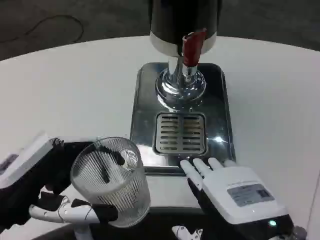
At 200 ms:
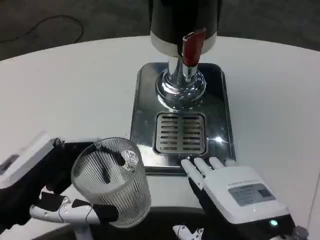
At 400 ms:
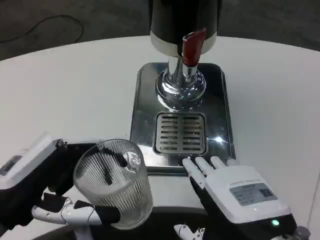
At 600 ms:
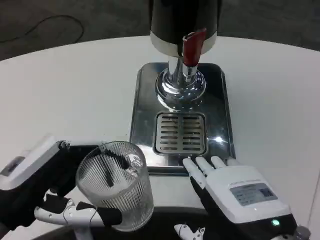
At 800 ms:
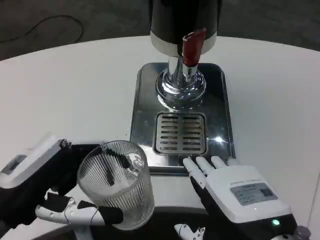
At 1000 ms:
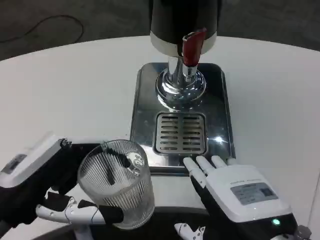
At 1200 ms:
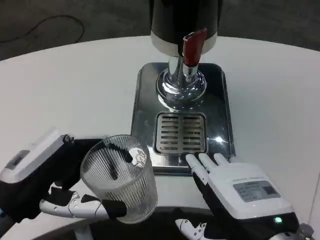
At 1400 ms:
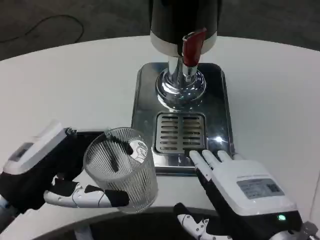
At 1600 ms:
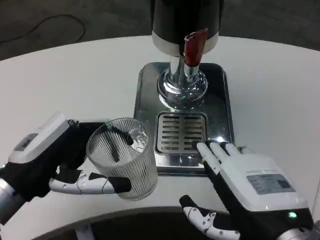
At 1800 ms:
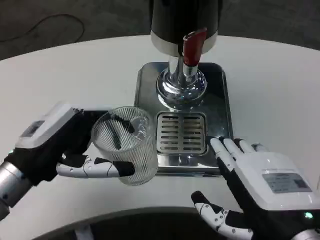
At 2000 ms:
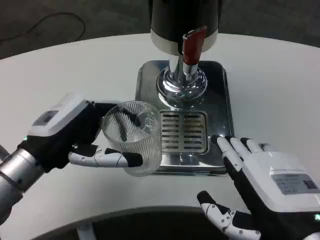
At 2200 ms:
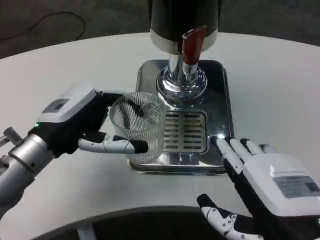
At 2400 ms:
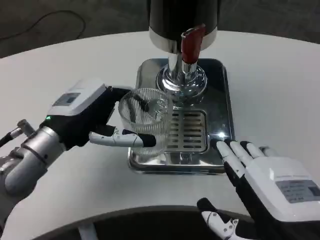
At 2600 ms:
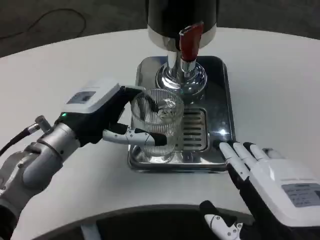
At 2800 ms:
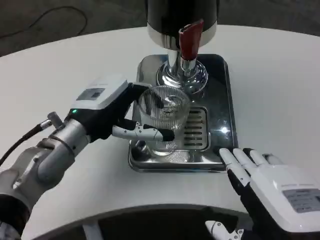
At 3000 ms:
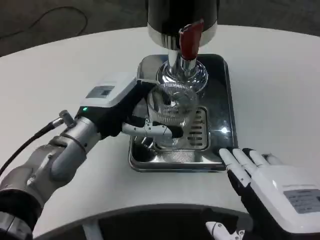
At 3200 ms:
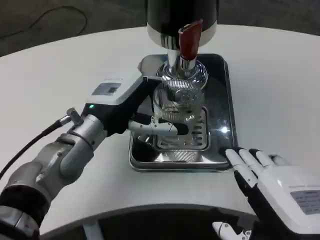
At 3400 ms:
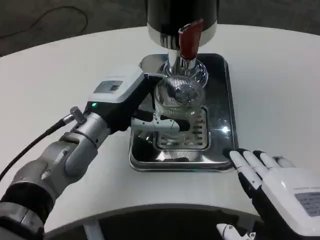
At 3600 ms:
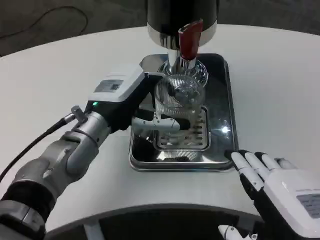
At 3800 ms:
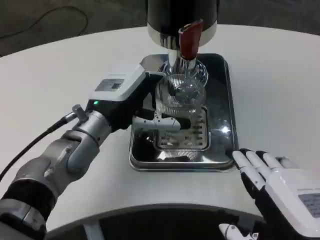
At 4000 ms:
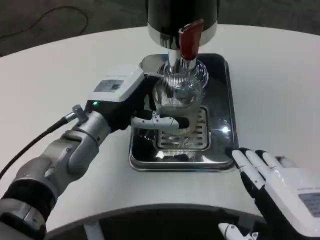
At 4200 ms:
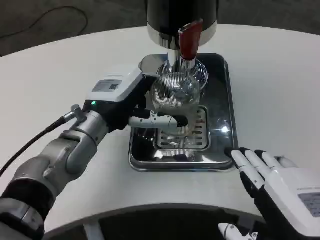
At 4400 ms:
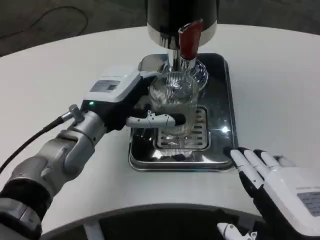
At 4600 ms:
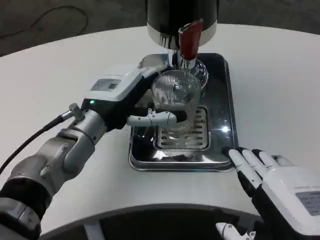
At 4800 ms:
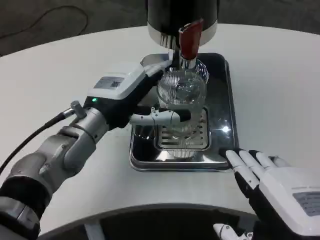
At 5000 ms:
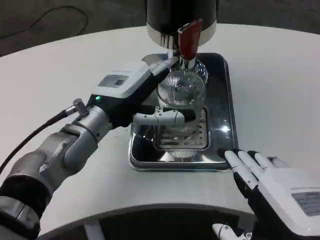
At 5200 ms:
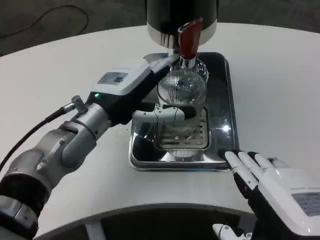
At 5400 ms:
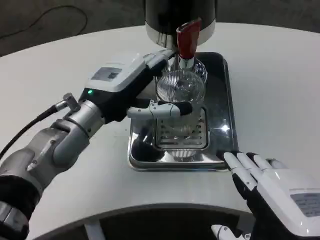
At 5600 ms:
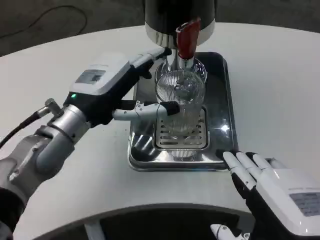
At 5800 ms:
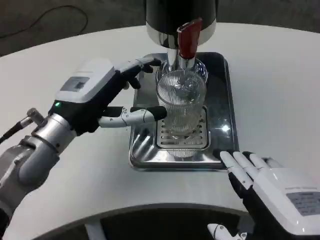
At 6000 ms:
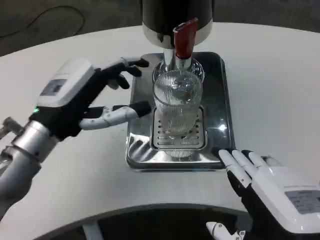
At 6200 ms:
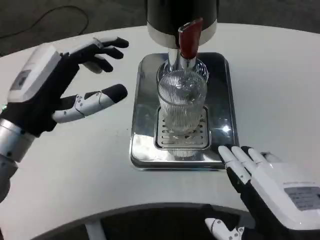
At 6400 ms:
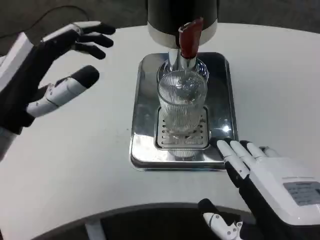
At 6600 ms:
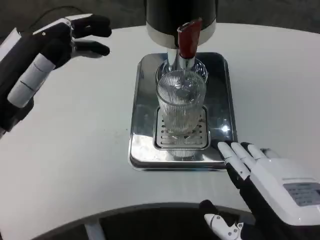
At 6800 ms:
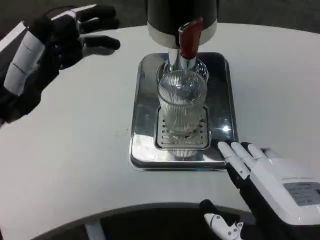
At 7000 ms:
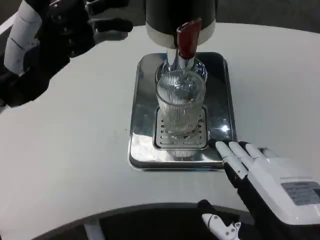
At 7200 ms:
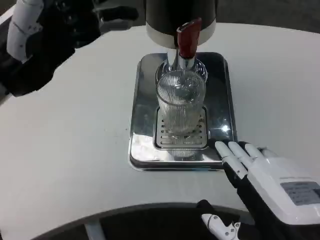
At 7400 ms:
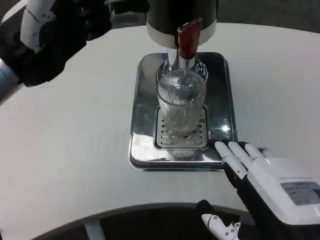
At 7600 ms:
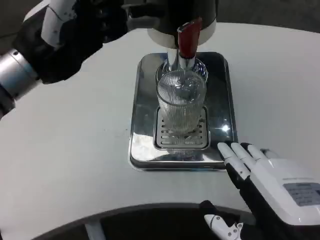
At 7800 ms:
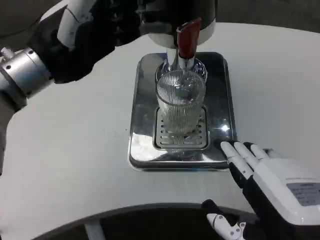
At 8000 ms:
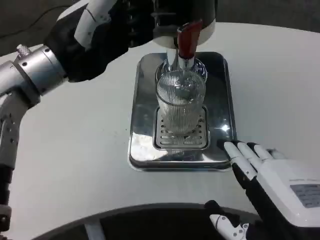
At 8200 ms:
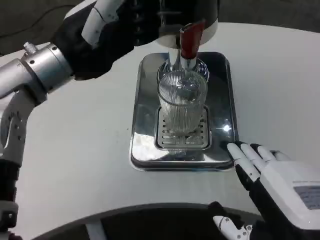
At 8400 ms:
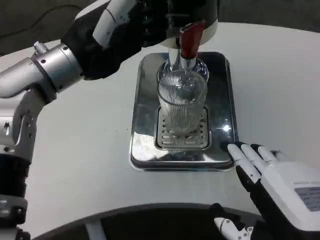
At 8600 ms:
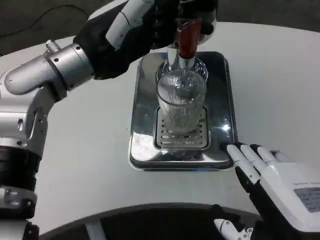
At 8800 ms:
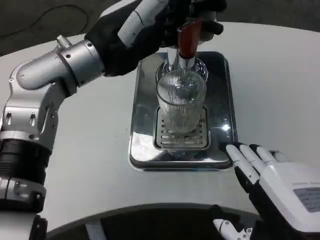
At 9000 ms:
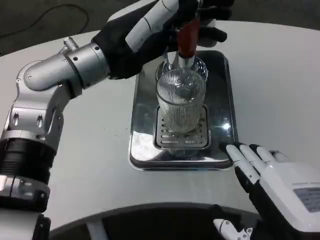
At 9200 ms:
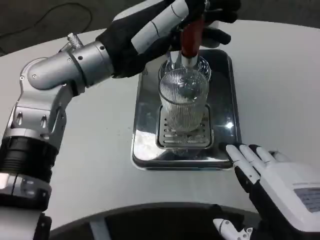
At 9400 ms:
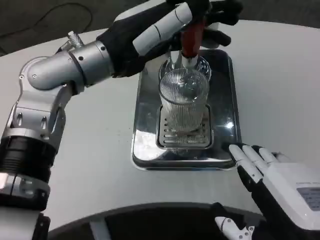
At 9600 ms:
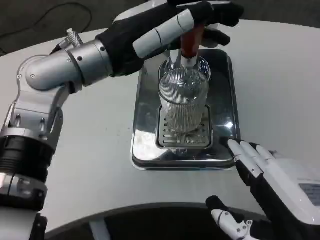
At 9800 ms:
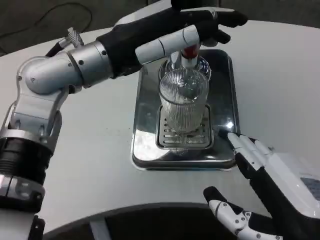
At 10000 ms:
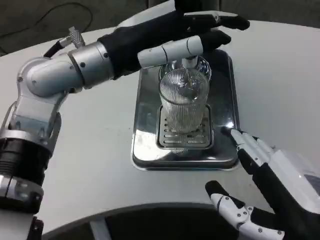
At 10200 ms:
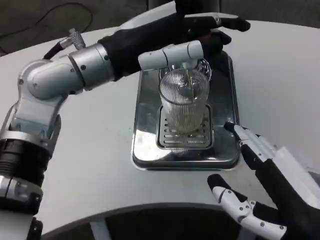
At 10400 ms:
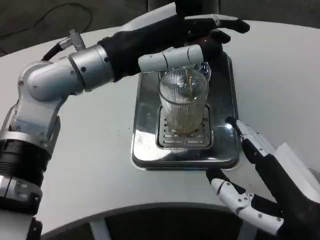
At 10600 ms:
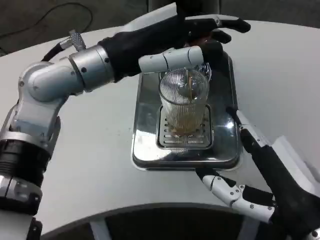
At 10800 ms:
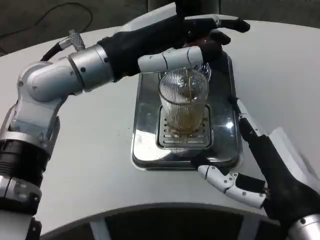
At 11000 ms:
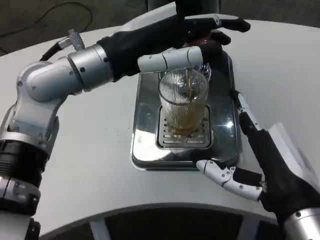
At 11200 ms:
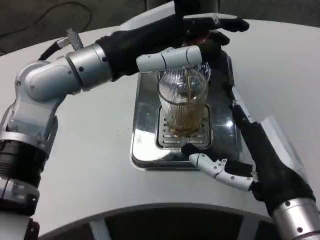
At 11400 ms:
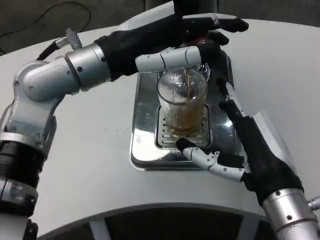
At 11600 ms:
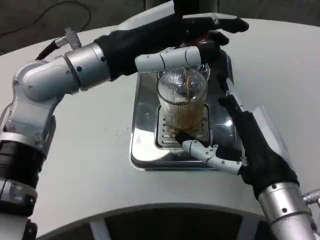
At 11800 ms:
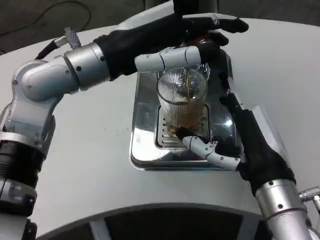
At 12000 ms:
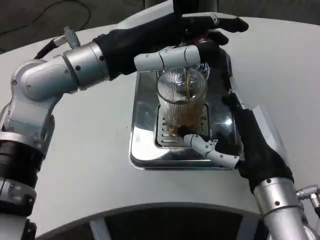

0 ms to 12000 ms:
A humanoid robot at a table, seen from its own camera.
Task of the whole recording: Grasp the cup under the faucet to collect the drink, then remove the cup.
1600 ms to 3000 ms: The left hand moves forward and to the right, about 15 cm.
3000 ms to 4400 ms: The hands stay close to where they were, moving slightly.
4400 ms to 6000 ms: The left hand goes some 10 cm to the left and backward.
6000 ms to 7600 ms: The left hand shifts approximately 10 cm upward.
7600 ms to 9000 ms: The left hand travels to the right by roughly 5 cm.
10400 ms to 12000 ms: The right hand moves forward, approximately 10 cm.

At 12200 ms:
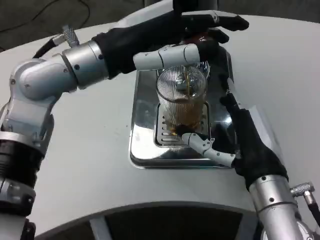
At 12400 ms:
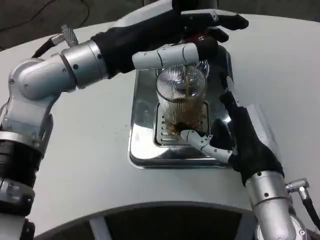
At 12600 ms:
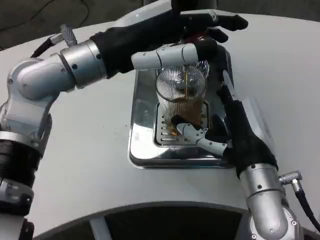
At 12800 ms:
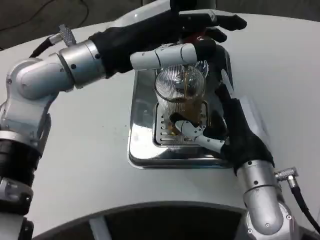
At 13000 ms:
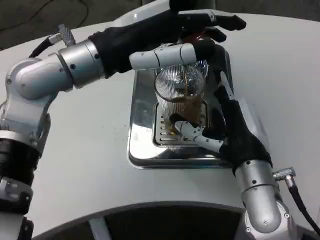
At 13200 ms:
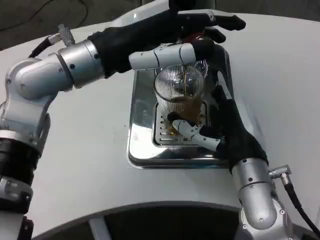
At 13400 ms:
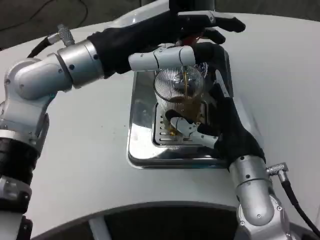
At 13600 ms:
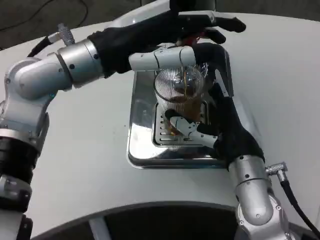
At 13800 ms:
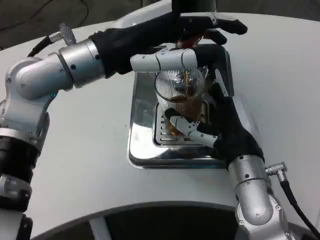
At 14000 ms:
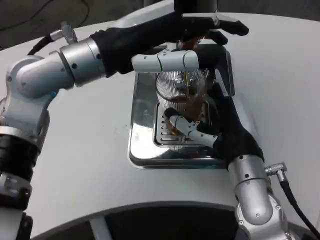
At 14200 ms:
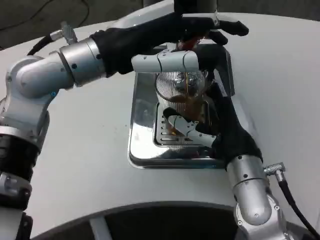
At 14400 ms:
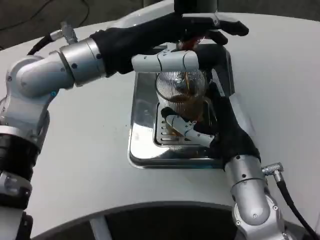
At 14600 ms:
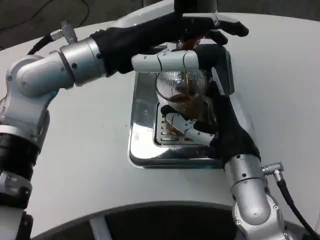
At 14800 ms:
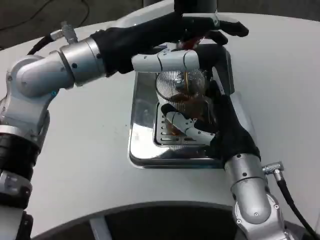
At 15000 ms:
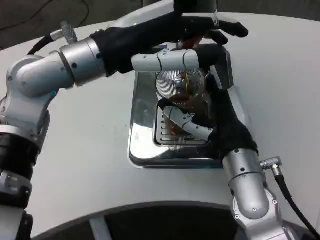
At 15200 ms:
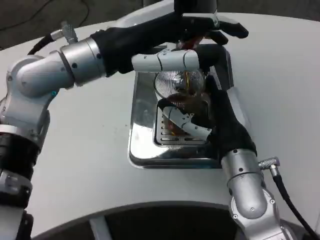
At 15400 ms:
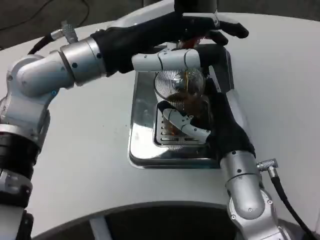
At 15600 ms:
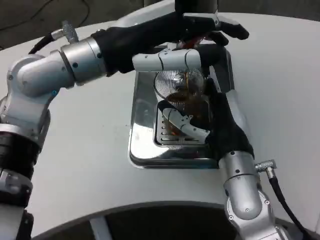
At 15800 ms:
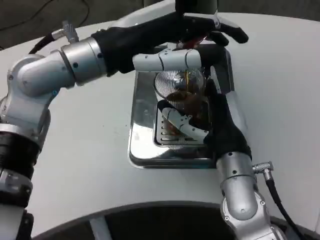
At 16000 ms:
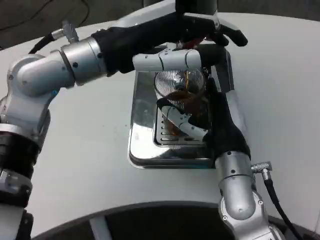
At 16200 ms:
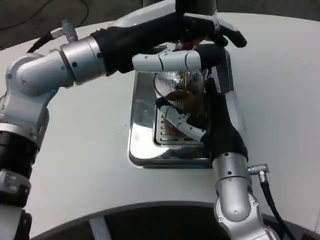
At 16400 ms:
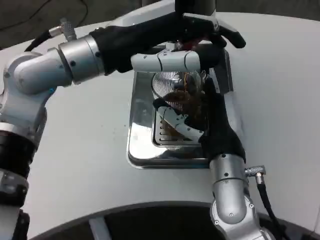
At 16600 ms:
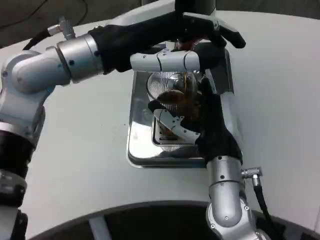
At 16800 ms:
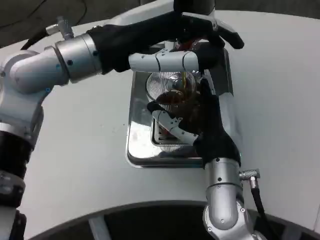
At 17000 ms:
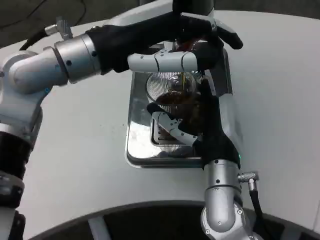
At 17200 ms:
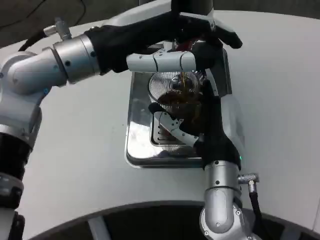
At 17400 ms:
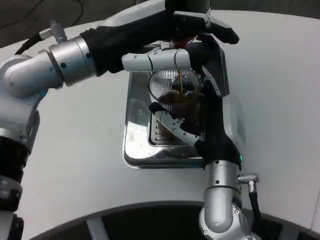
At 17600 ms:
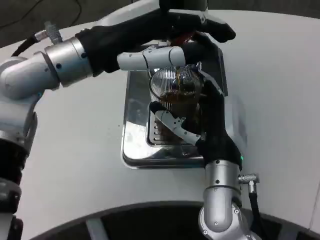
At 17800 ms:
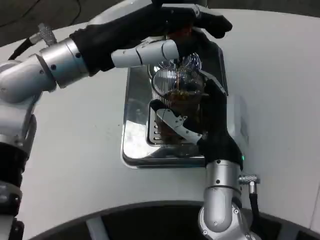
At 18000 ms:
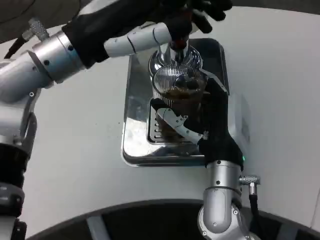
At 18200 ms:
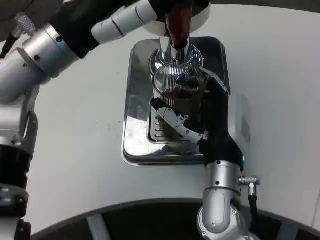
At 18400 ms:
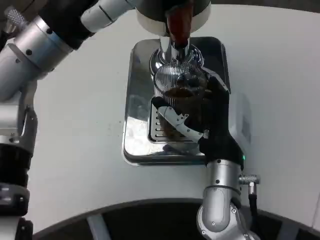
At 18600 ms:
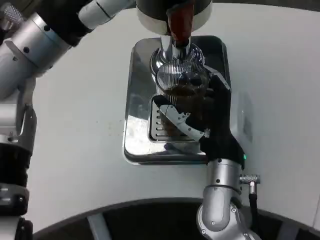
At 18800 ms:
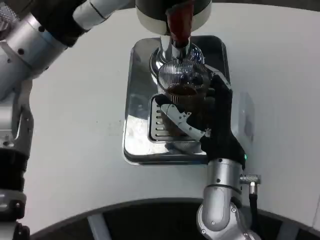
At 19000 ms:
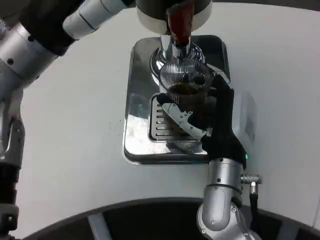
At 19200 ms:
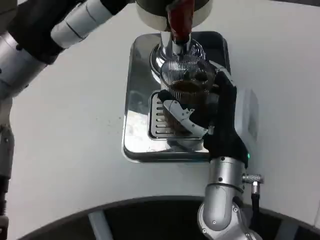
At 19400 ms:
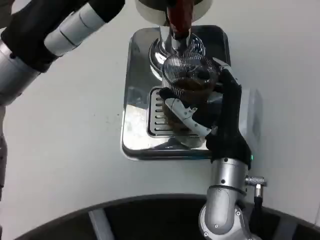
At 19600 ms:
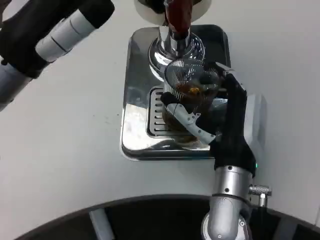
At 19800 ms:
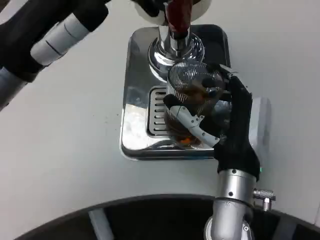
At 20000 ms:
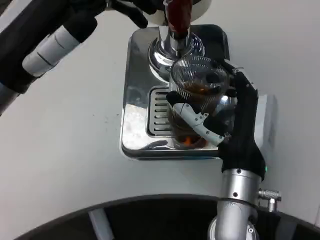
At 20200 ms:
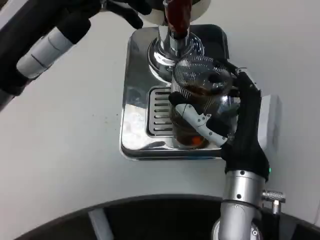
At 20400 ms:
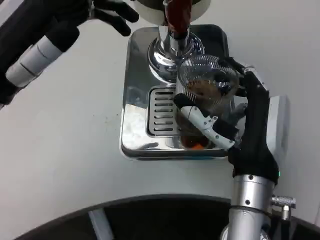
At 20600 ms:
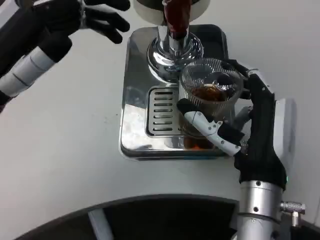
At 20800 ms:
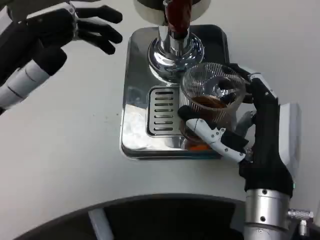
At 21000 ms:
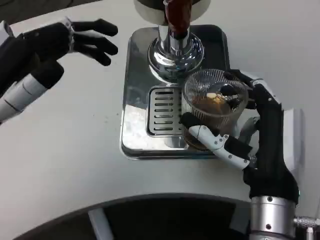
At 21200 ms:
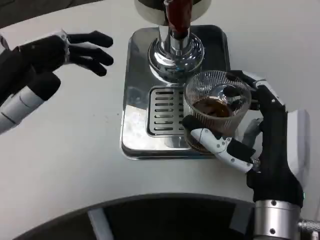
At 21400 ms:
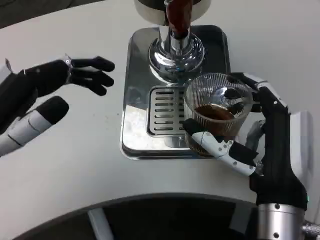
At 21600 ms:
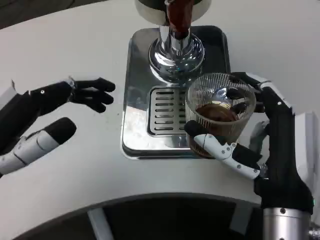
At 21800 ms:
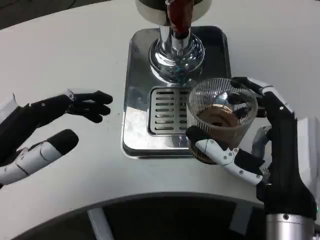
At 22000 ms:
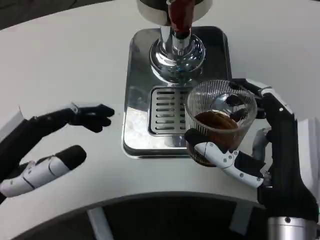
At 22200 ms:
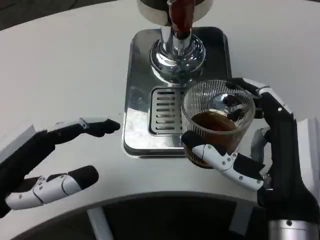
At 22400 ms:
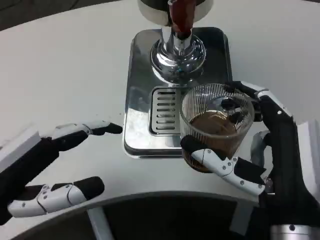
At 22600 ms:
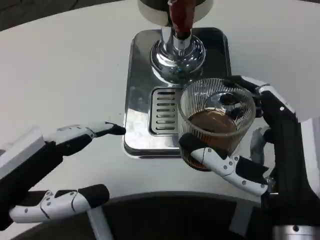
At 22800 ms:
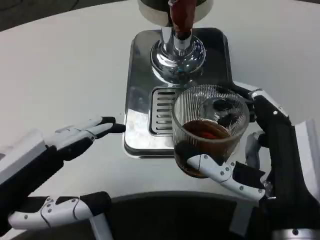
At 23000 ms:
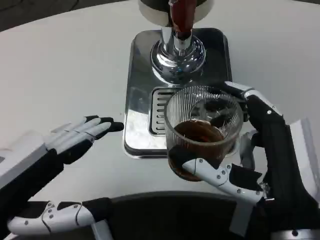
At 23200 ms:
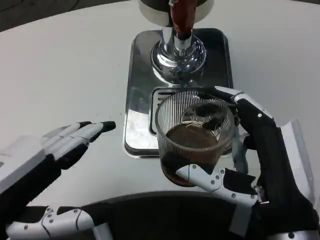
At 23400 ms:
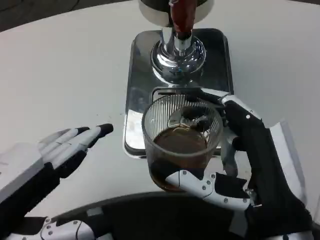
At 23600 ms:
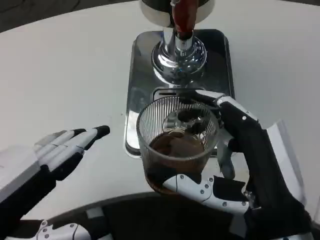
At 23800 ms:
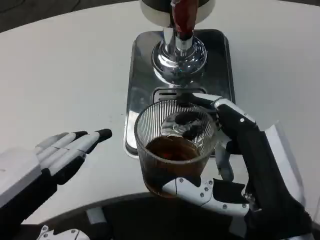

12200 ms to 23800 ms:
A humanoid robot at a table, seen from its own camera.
Task of the whole recording: Grasp the cup under the faucet to collect the drink, then remove the cup.
13600 ms to 15000 ms: The hands move only a little.
18000 ms to 19400 ms: The left hand changes place by approximately 5 cm.
19400 ms to 21000 ms: The left hand heads downward, to the left and backward, covering approximately 10 cm, while the right hand heads backward, covering about 5 cm.
21000 ms to 22400 ms: The left hand heads backward, covering about 5 cm.
22400 ms to 23800 ms: The left hand travels backward by about 5 cm.
